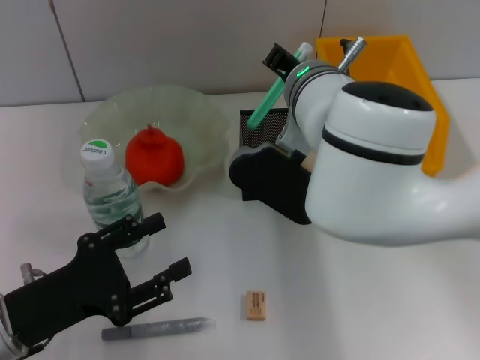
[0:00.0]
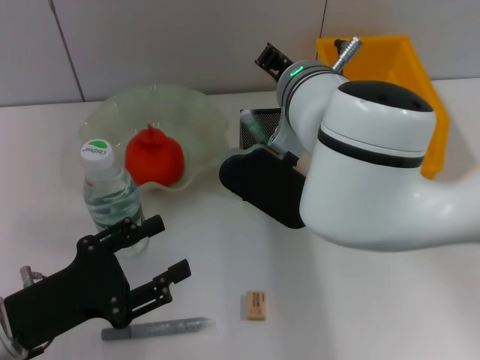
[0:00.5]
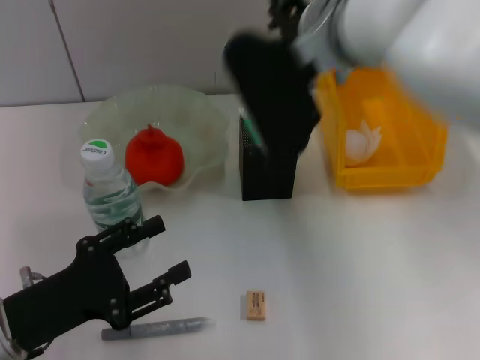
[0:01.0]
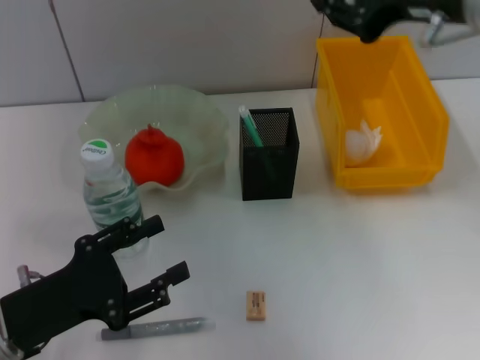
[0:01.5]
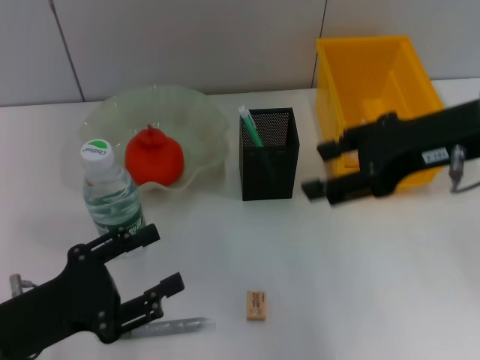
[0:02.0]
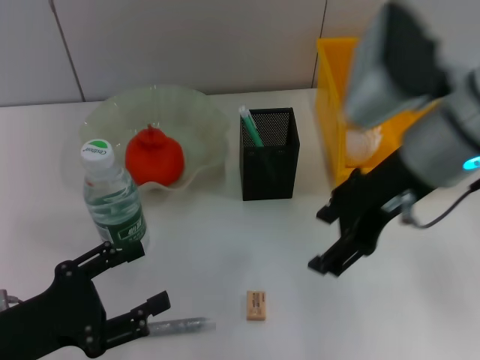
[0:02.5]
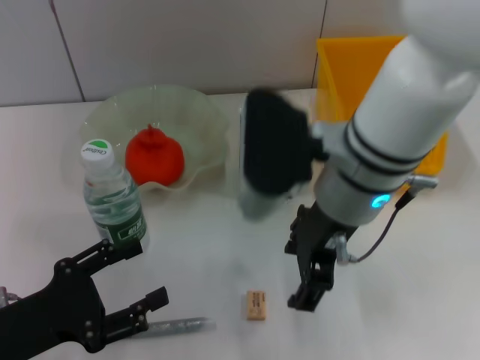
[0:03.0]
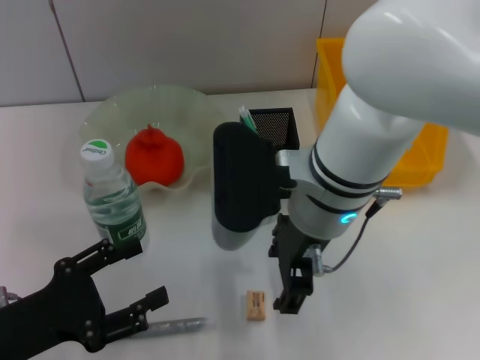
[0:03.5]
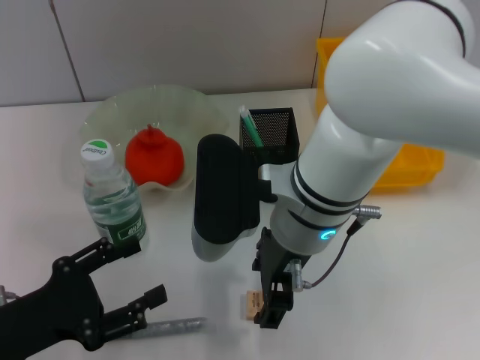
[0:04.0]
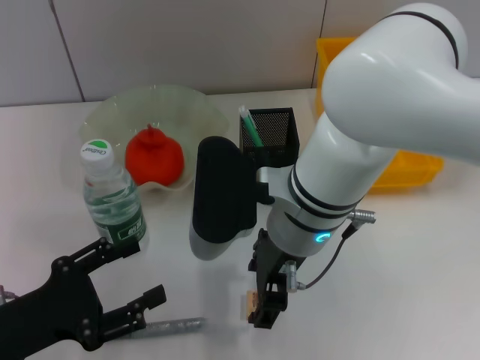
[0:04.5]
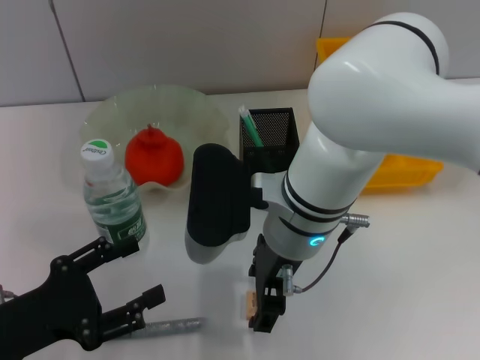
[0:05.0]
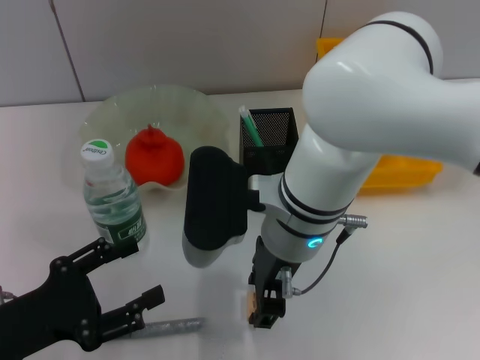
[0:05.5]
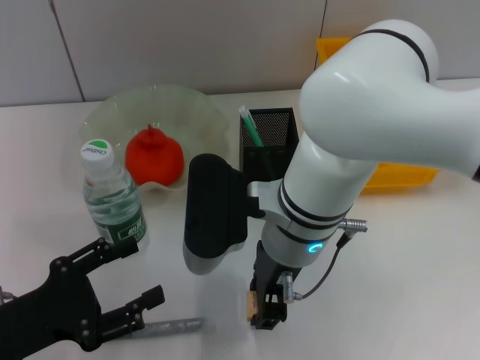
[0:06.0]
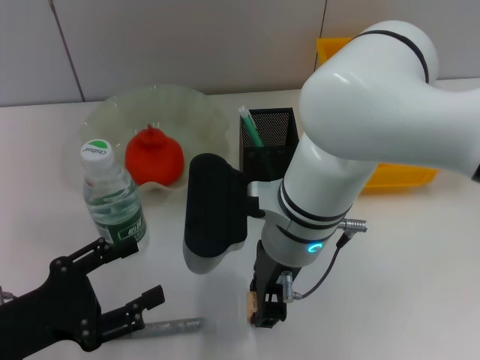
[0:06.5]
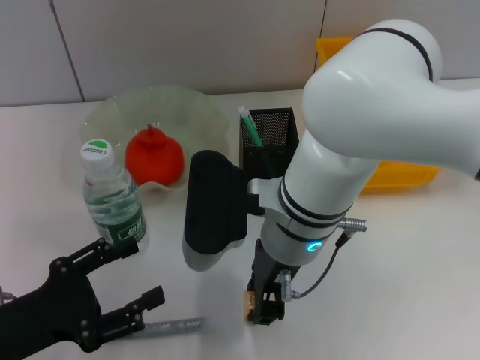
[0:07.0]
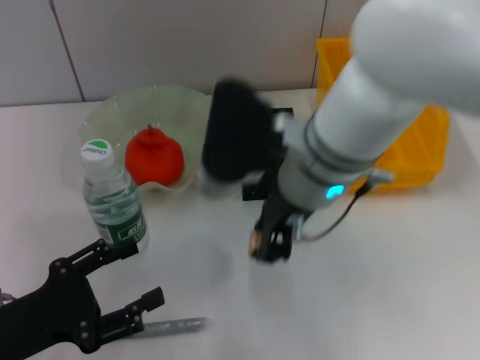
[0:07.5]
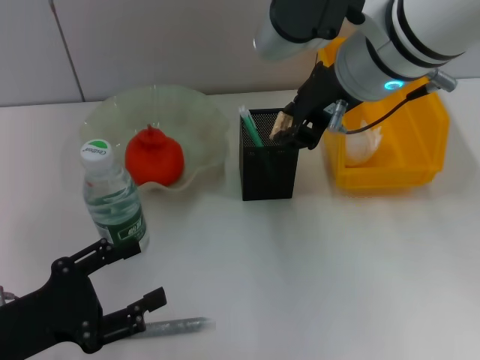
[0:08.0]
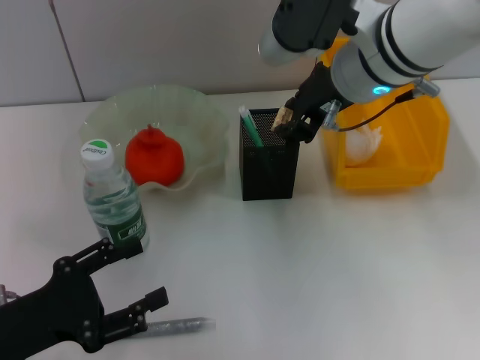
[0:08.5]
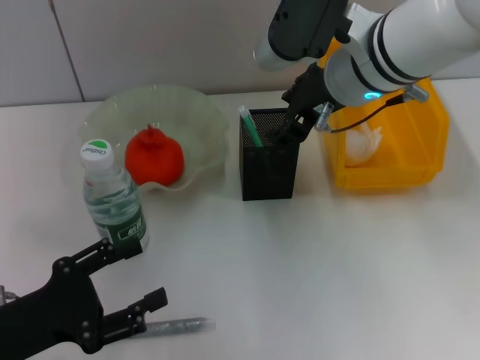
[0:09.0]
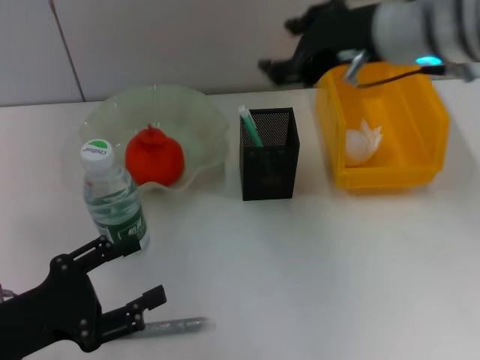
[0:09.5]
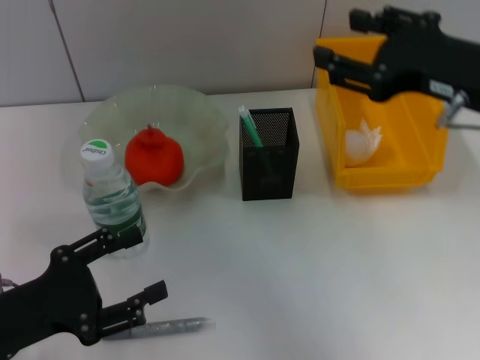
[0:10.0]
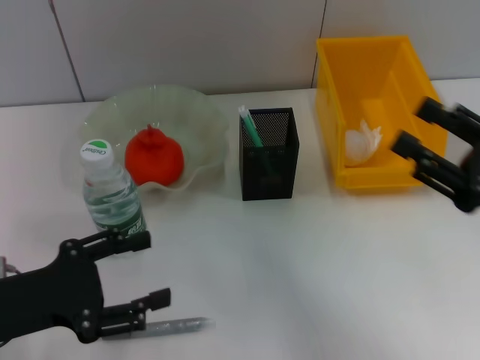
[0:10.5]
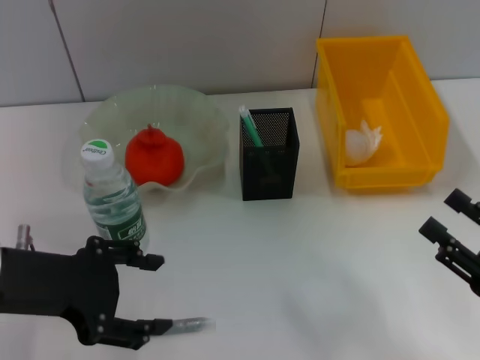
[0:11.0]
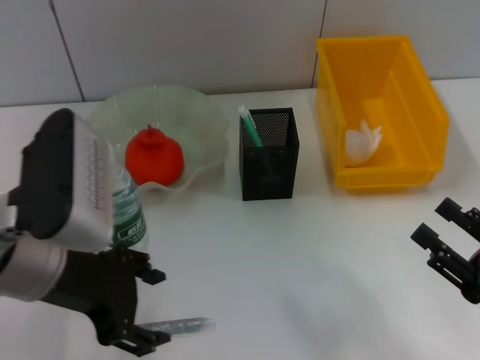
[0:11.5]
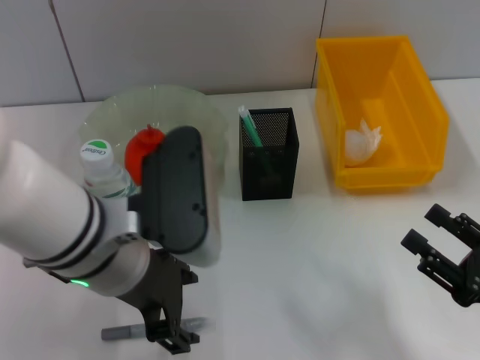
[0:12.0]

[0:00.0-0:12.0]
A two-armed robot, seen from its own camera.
Step, 0:01.0 to 0:06.5: Grab the eraser with the right hand.
Step, 0:07.0 to 0:10.0: Put the eraser into the pen holder with the right hand.
0:00.0 to 0:02.0: The right gripper shifts roughly 20 cm to the right and backward, and opens.
0:02.0 to 0:04.0: The right gripper moves to the left and downward, about 20 cm.
0:04.0 to 0:06.0: The right gripper closes up.
0:06.0 to 0:08.0: The right gripper heads upward and to the right, covering approximately 15 cm.
0:08.0 to 0:10.0: The right gripper moves to the right and backward, approximately 15 cm, and opens up.
0:10.0 to 0:12.0: The left gripper goes roughly 20 cm to the right and upward. Meanwhile the right gripper goes about 20 cm downward and backward.

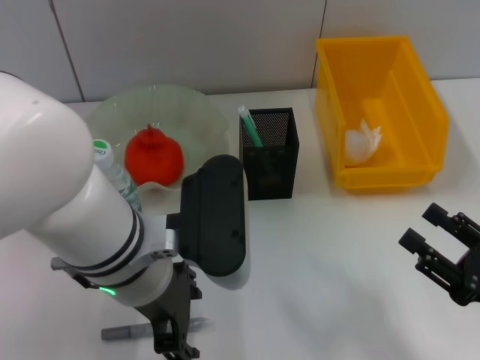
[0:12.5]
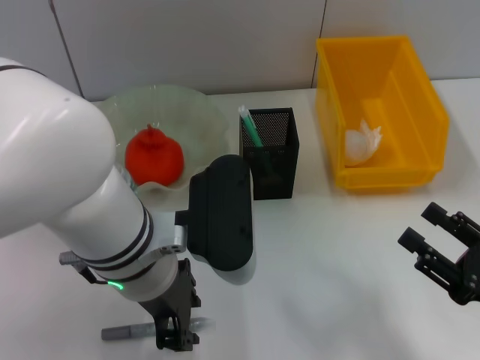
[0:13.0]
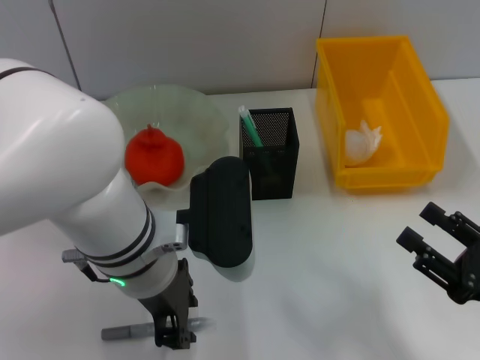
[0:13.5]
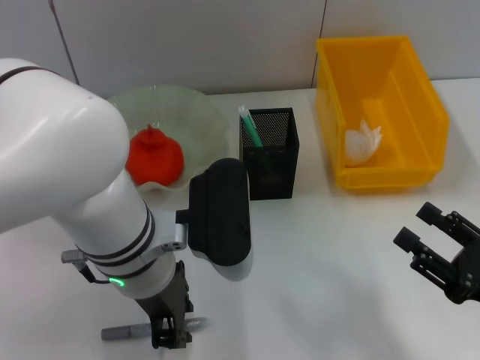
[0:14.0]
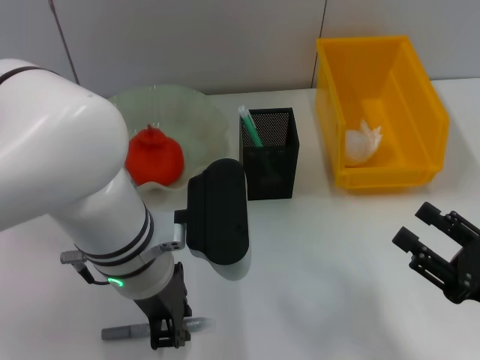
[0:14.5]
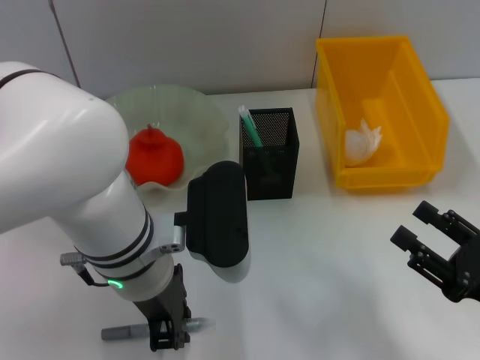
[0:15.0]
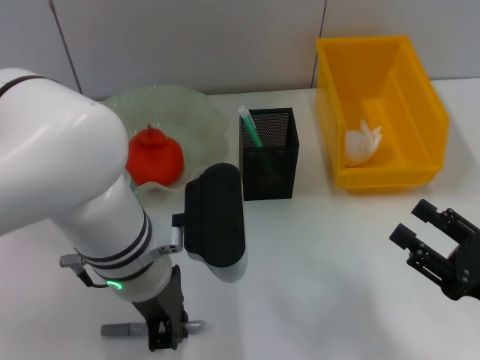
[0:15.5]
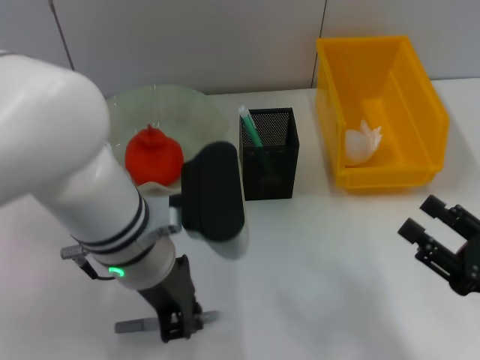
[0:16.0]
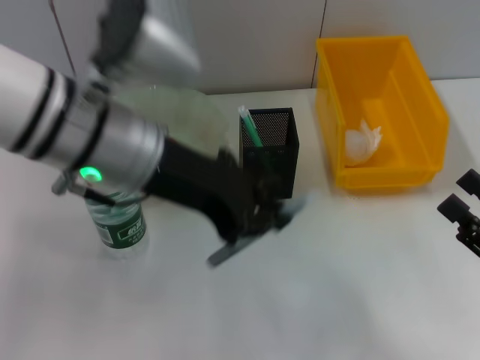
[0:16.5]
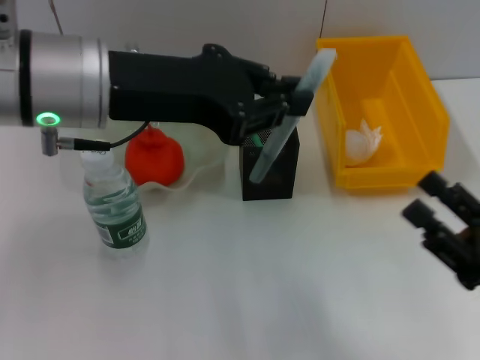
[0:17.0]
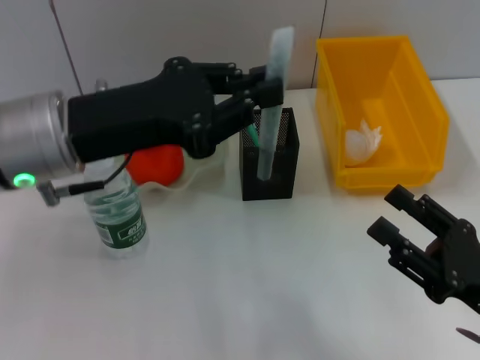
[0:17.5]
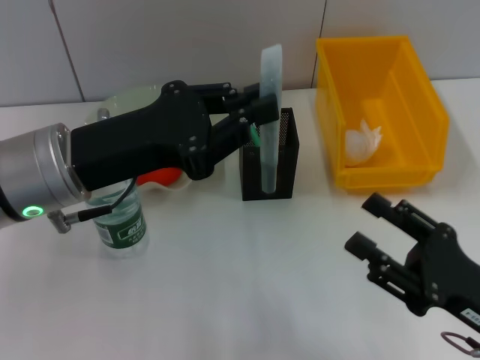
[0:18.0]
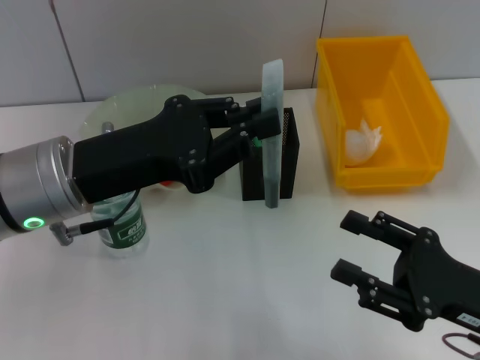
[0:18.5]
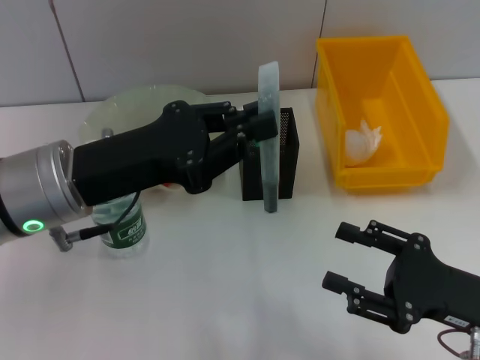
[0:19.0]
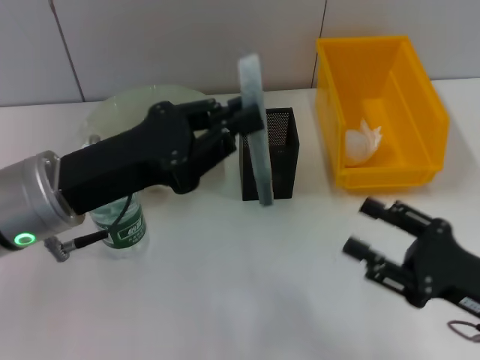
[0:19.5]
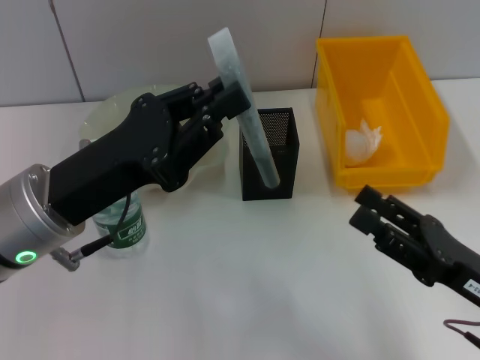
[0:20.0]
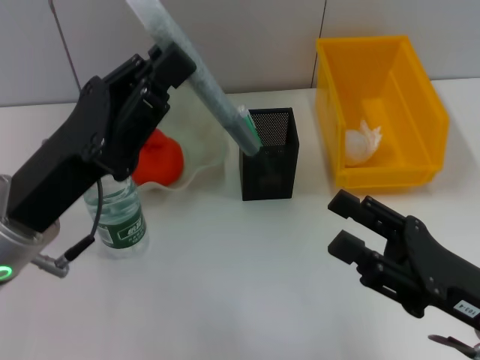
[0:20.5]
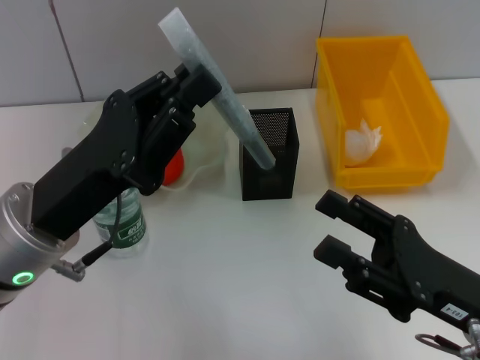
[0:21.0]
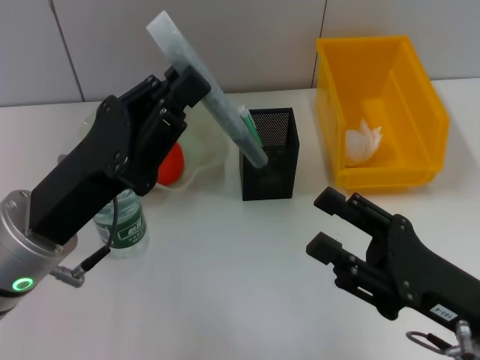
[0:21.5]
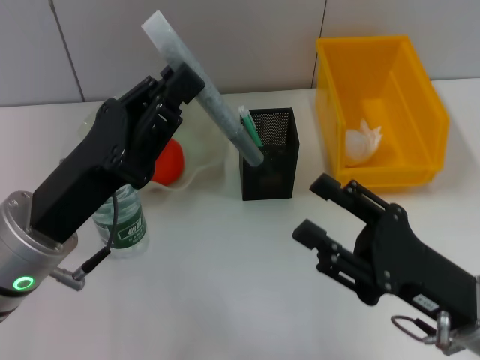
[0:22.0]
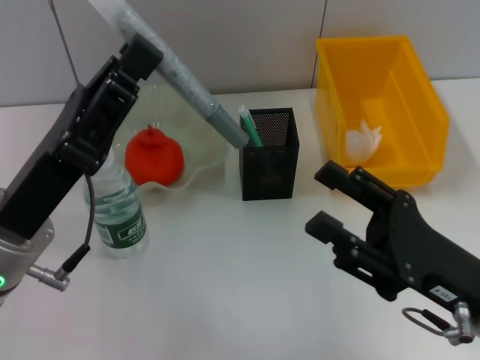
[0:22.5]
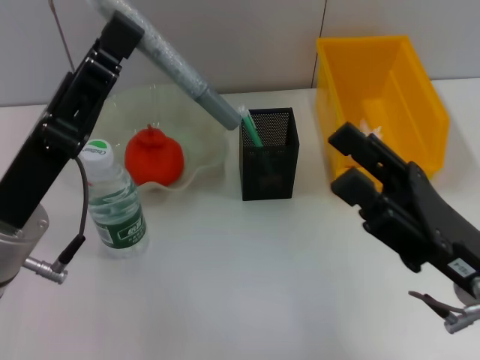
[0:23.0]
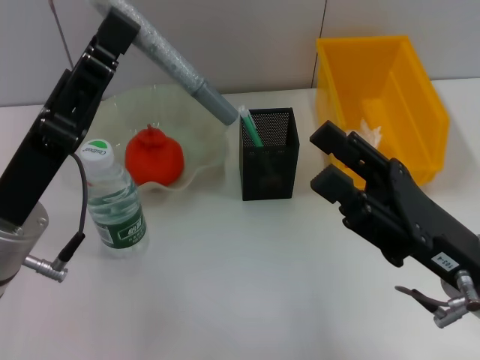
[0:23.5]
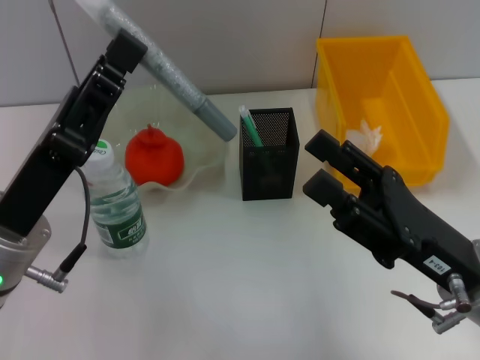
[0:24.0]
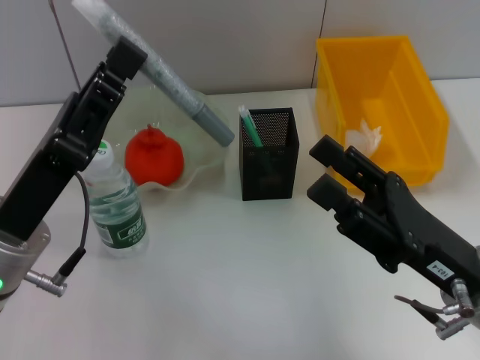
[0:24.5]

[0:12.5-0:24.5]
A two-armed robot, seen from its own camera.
Step, 0:12.5 to 0:15.0: Grab the gray glue with the left hand.
0:12.5 to 0:14.5: The left gripper closes.
0:14.5 to 0:16.5: The left gripper is displaced upward by about 10 cm.
0:16.5 to 0:18.5: The right gripper travels to the left by approximately 5 cm. Meanwhile the left gripper goes roughly 10 cm downward and to the left.
0:20.5 to 0:24.5: There are only small adjustments of the grippers.

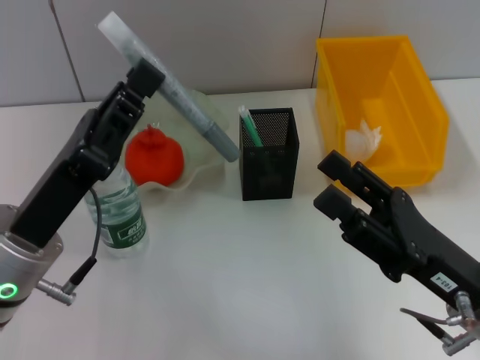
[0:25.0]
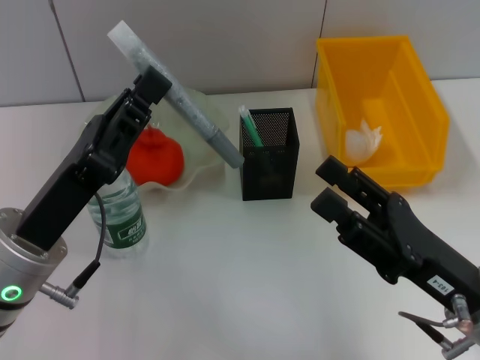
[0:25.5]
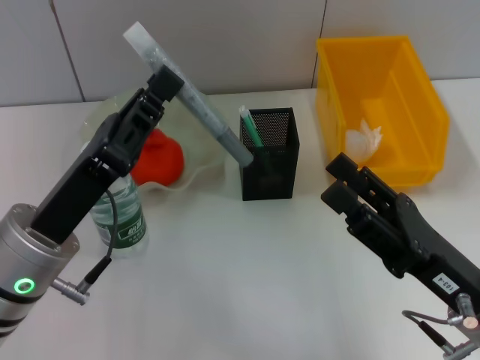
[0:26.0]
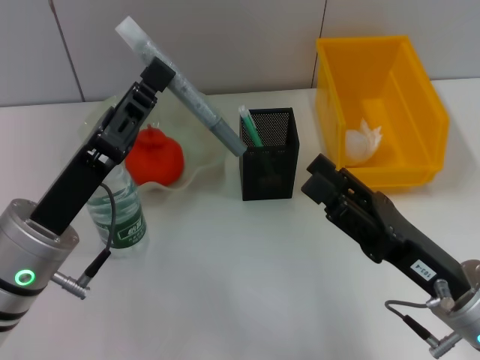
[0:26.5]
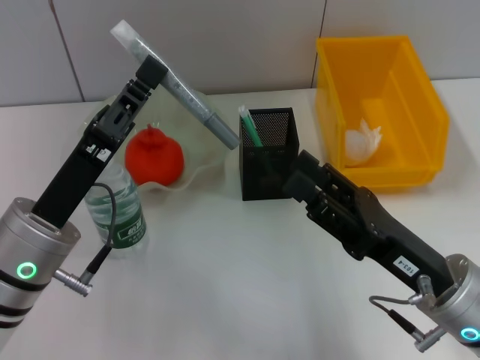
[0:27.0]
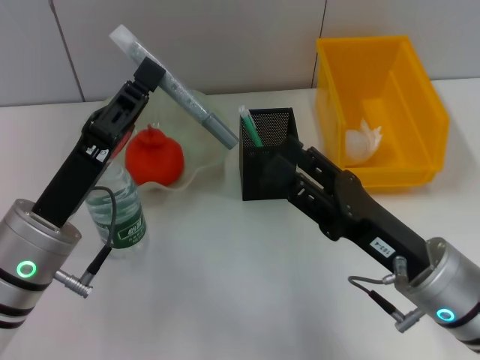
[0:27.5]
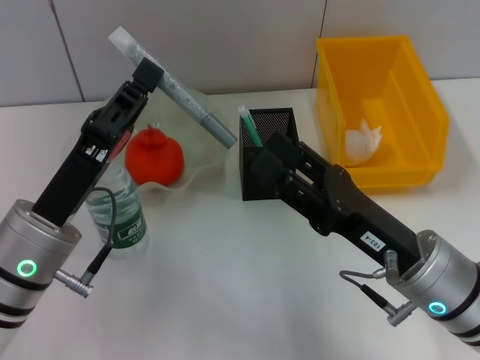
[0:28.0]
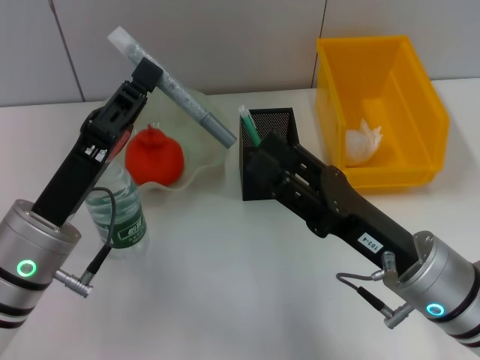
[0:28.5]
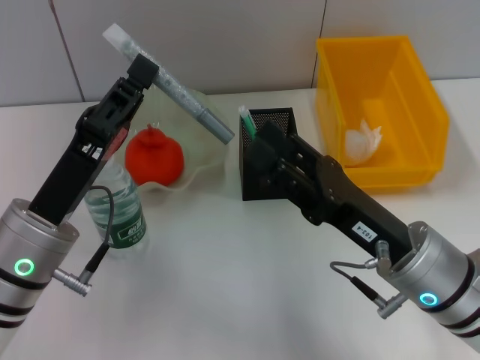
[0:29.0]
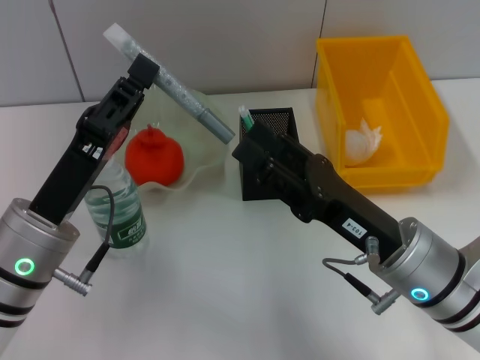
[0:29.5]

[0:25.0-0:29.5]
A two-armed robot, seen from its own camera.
0:25.0 to 0:27.0: The grippers make only small movements.
0:27.0 to 0:29.5: The grippers make only small movements.
